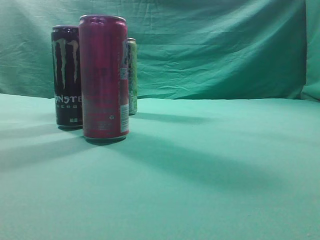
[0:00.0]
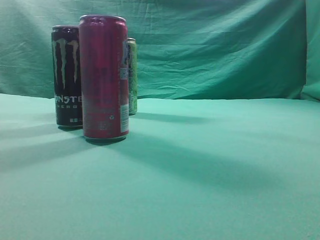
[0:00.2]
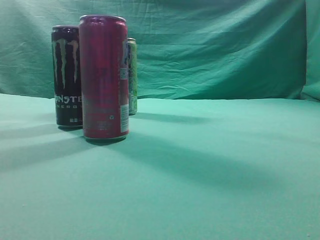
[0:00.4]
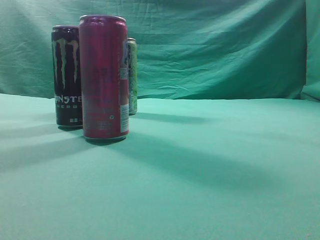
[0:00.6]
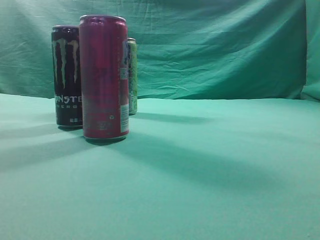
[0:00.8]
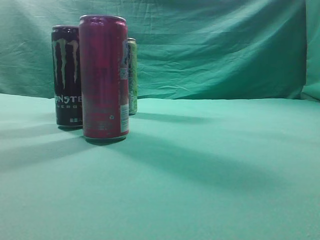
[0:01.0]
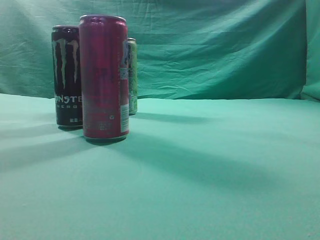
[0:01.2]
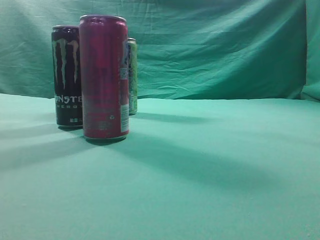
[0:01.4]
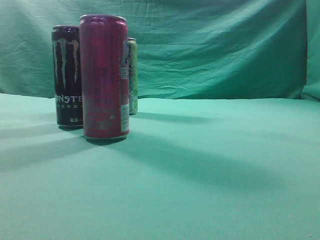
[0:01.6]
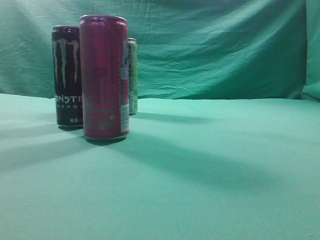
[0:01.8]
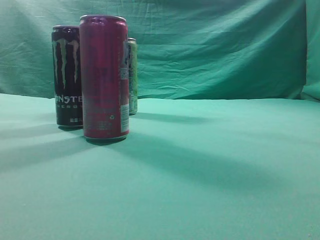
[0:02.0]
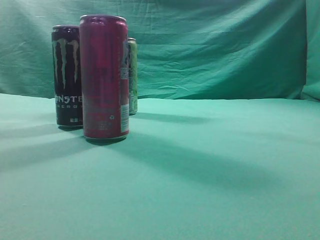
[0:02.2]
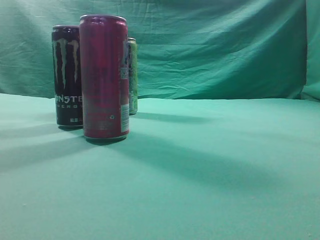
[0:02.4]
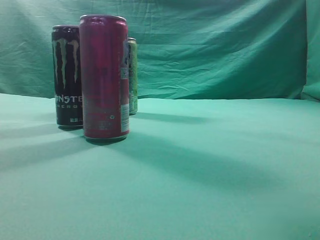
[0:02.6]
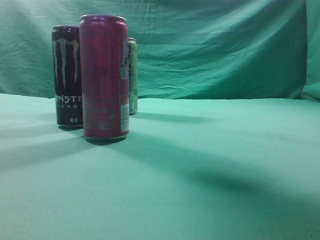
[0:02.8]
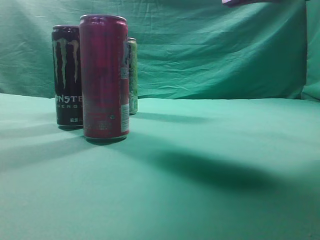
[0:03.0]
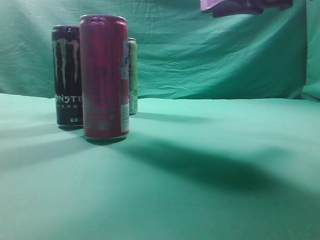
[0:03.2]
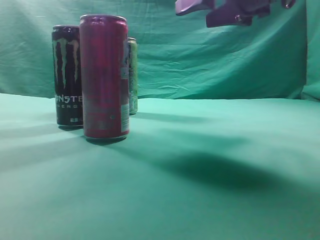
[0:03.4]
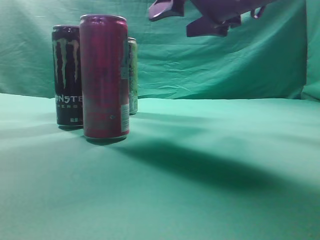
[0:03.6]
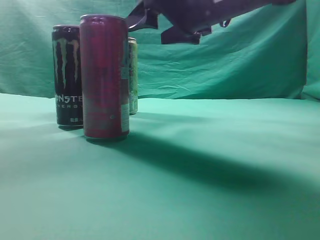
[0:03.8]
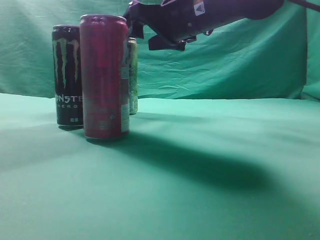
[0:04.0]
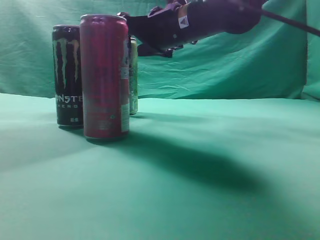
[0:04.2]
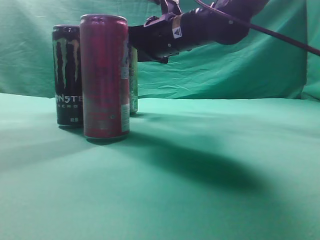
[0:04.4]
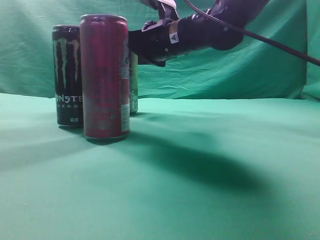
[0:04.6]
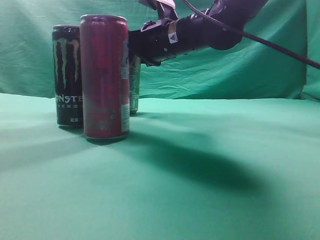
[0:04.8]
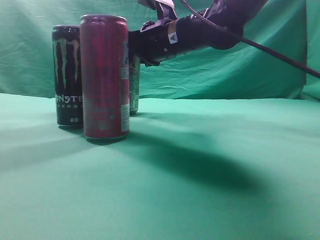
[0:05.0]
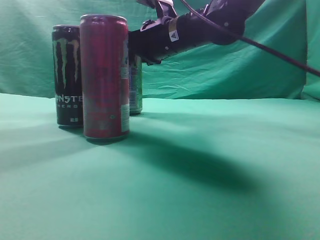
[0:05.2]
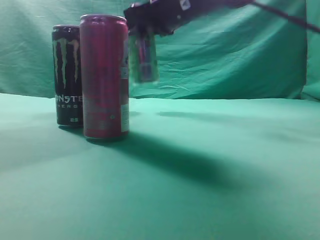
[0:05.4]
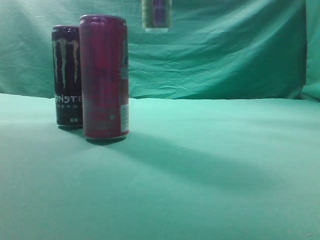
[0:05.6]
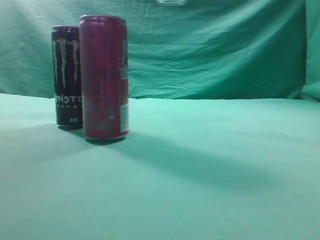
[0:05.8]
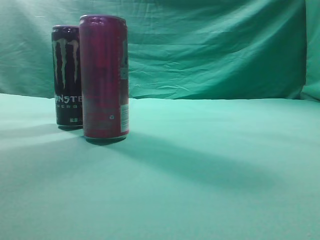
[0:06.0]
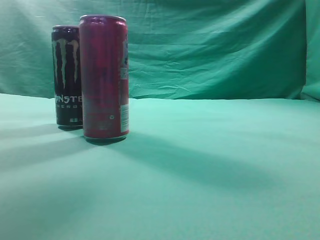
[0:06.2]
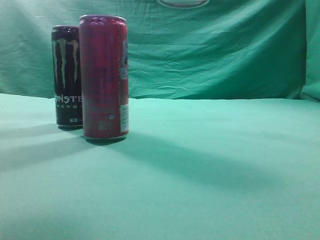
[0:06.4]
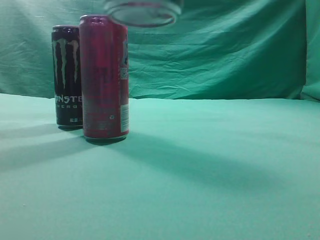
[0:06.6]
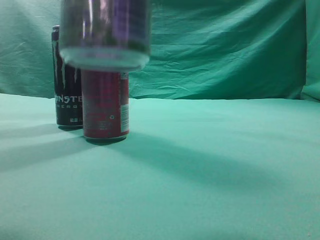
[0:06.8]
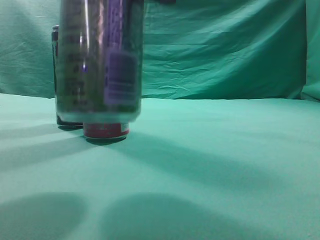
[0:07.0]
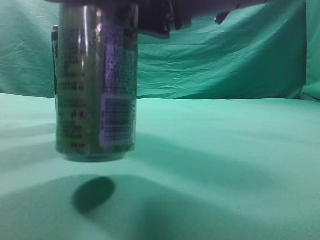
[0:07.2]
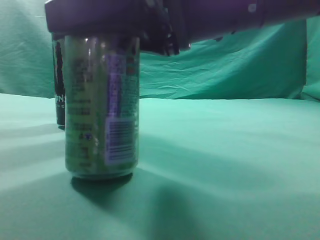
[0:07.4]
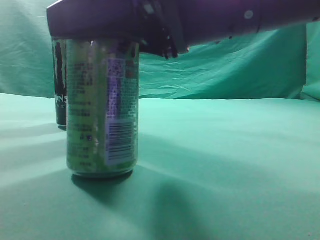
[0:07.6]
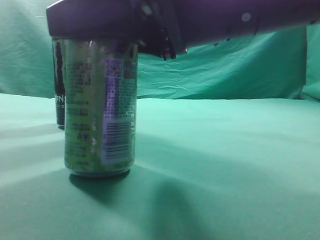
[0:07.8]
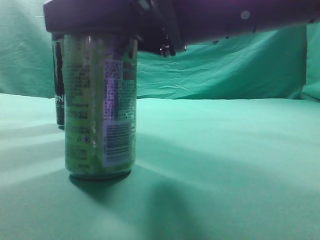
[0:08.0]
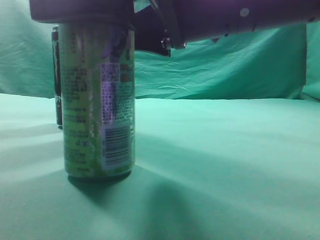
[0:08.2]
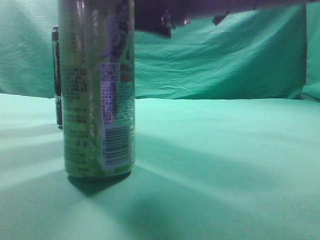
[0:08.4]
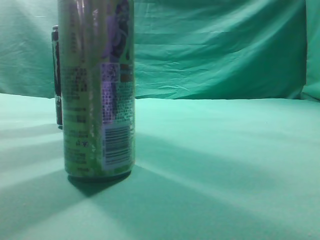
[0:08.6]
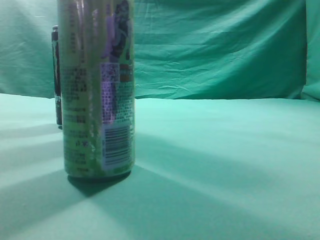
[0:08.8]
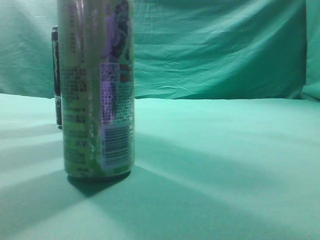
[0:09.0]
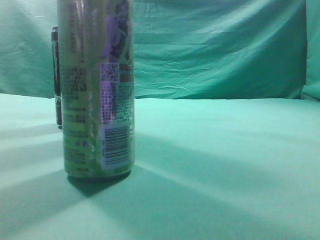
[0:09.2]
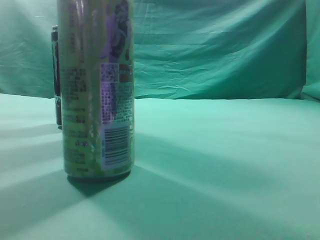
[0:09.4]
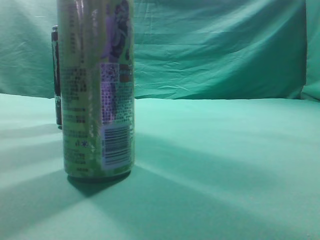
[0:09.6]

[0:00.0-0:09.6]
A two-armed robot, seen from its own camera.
Task of the whole recording: move one drink among three beverages.
Step, 0:00.0 to 0:05.4: Grasp the beverage bottle placed at the back of the desk.
Step, 0:05.6 to 0:08.4: Place the beverage bottle to the front of the table.
0:01.6 to 0:03.2: The right gripper is displaced forward and to the left by some 30 cm.
0:03.2 to 0:04.8: The right gripper travels forward, to the left and downward by approximately 20 cm.
0:04.8 to 0:06.4: The right gripper travels backward, upward and to the right by some 30 cm.
0:06.4 to 0:08.0: The right gripper moves downward and to the left, about 15 cm.
0:08.0 to 0:09.6: The right gripper is displaced upward, to the right and backward by roughly 25 cm, and closes up.
